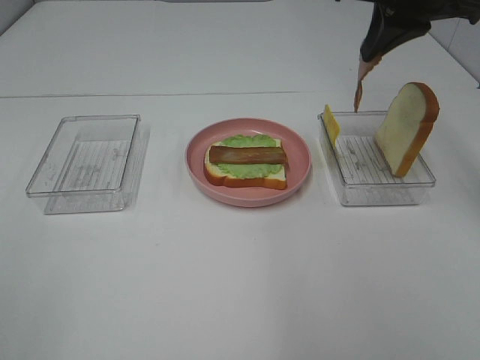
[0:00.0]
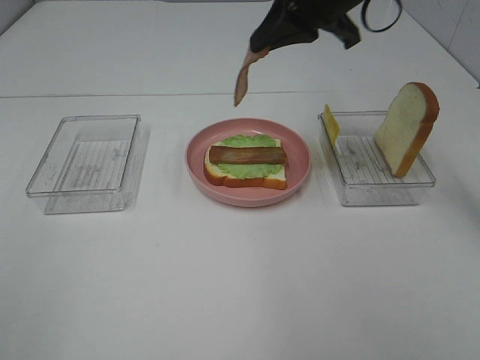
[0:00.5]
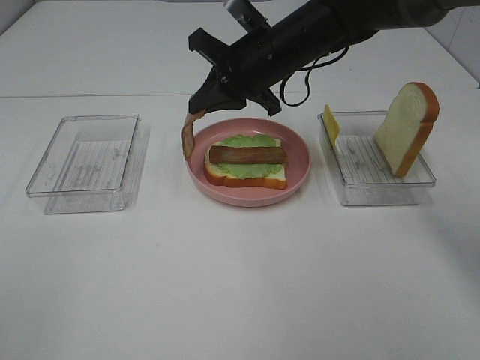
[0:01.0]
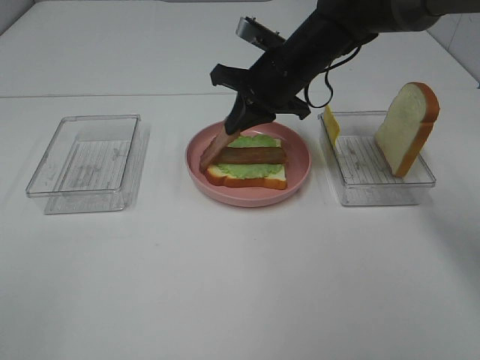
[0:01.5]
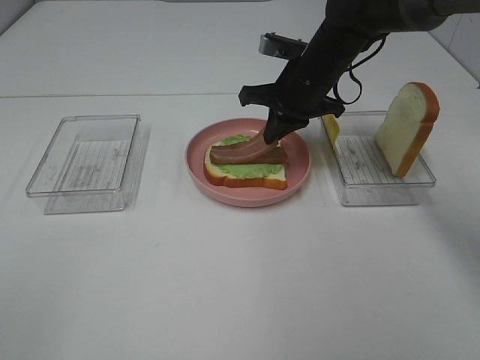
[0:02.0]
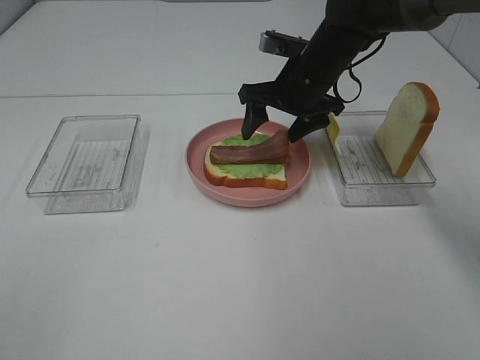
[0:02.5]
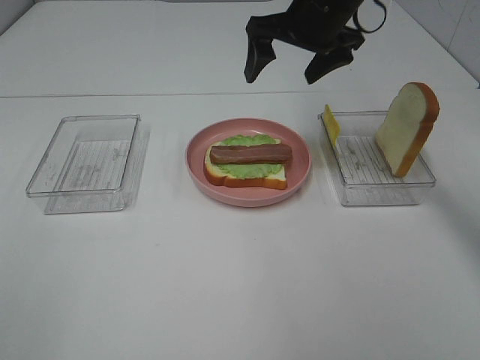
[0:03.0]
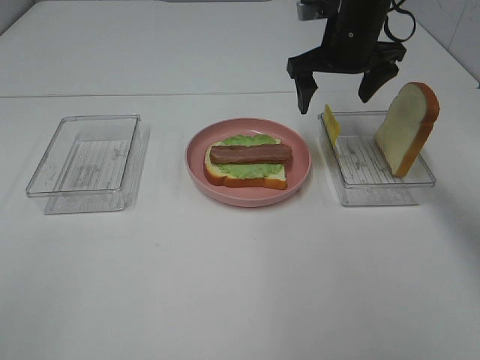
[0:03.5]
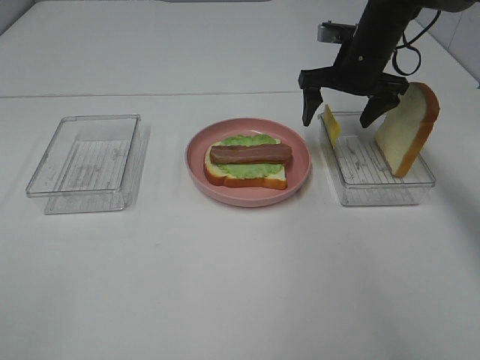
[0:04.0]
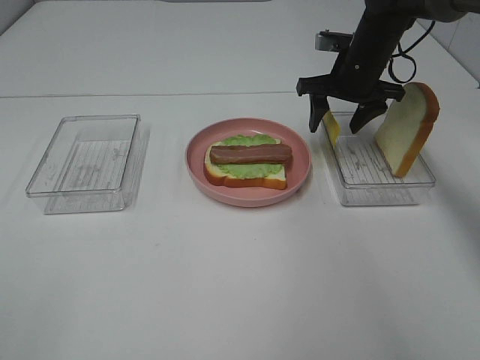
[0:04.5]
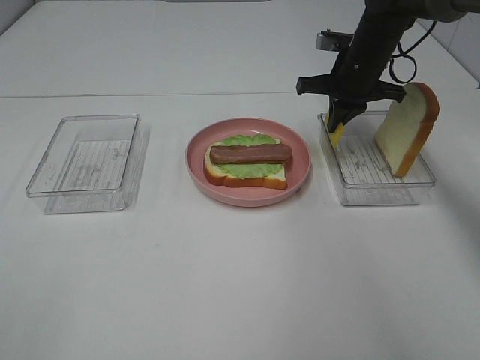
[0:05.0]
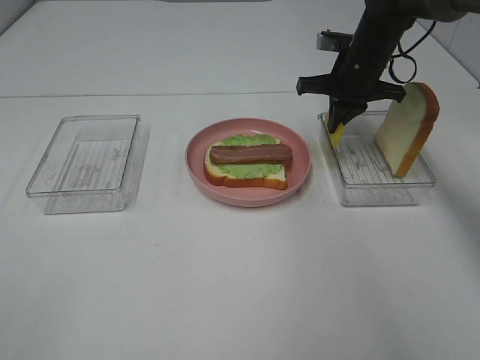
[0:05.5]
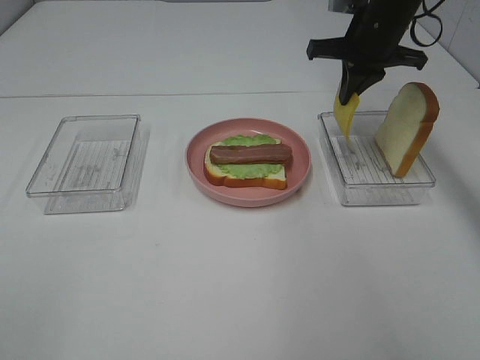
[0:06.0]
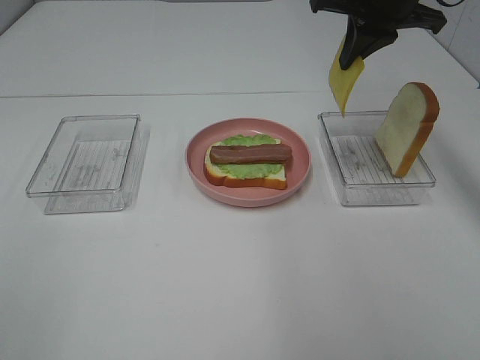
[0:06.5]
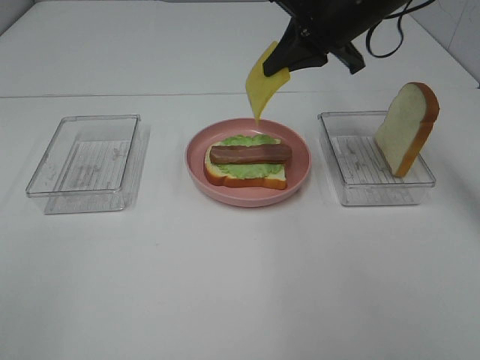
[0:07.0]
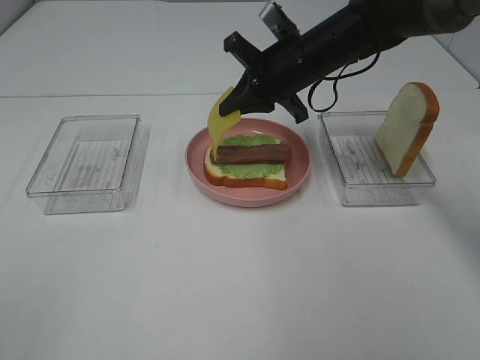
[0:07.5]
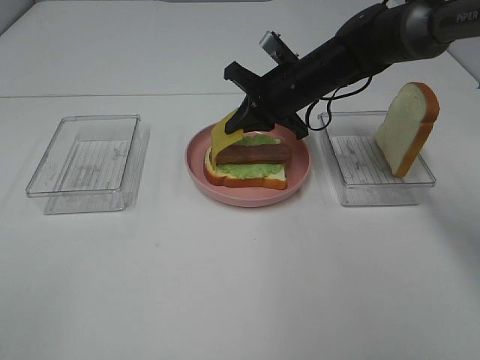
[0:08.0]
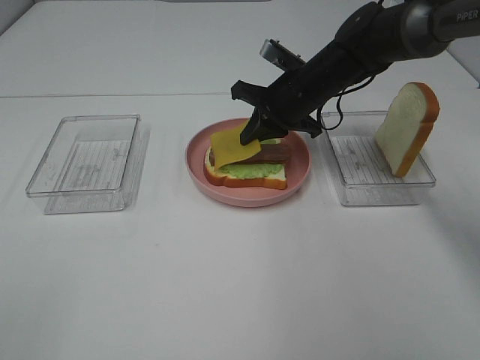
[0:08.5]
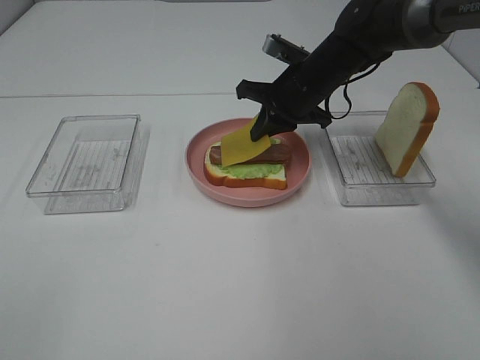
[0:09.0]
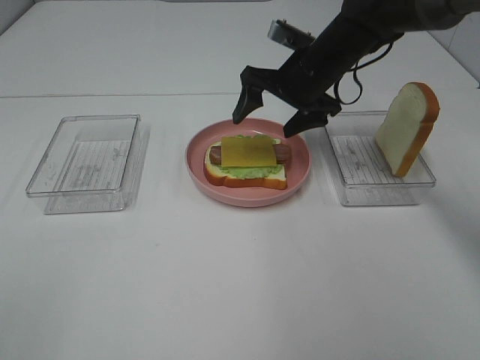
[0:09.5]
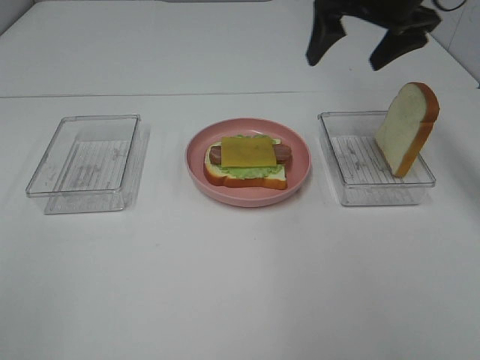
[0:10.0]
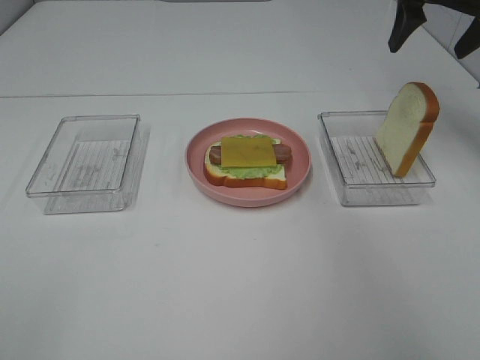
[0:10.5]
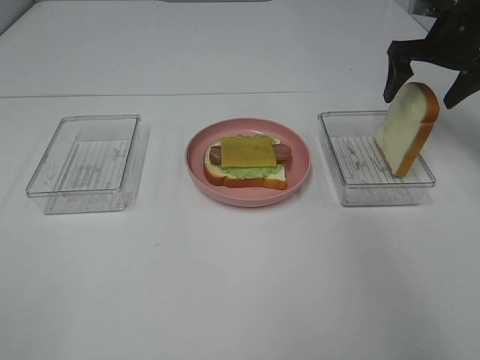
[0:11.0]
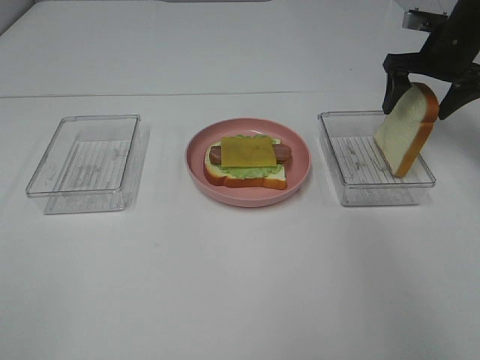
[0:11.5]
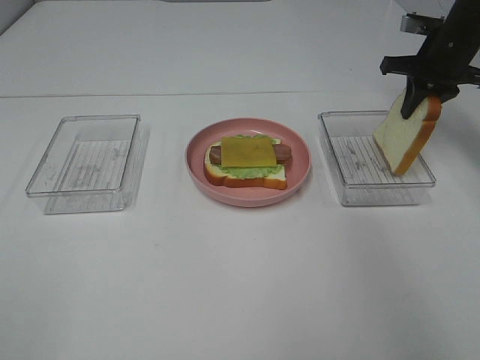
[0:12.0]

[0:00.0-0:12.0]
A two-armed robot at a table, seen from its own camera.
Task of the whole recording: Make sandwiches.
Step, 0:00.0 to 0:02.5: Right hand:place bacon on bacon.
Step, 0:03.0 to 0:05.0: Right hand:grab the cheese slice.
Step, 0:05.5 to 0:09.0: Right hand:place the cheese slice on top of the bacon.
Step, 0:09.5 to 0:11.5: Right hand:grab the bread slice.
0:00.0 to 0:02.0: The right gripper heads downward, to the left and forward, covering about 20 cm.
0:02.0 to 0:04.0: The right gripper is displaced to the right by about 10 cm, travels upward and back again, roughly 10 cm each way, and opens up.
0:04.0 to 0:06.0: The right gripper is displaced upward by roughly 5 cm, and closes its fingers.
0:06.0 to 0:08.0: The right gripper is displaced to the left and downward by approximately 10 cm.
0:08.0 to 0:10.0: The right gripper moves upward and to the right, about 20 cm, and opens its fingers.
0:10.0 to 0:12.0: The right gripper shifts roughly 15 cm to the right, downward and forward, and closes.

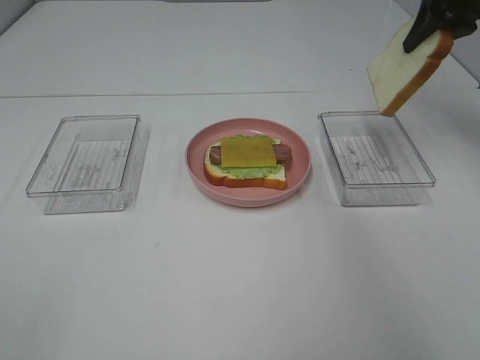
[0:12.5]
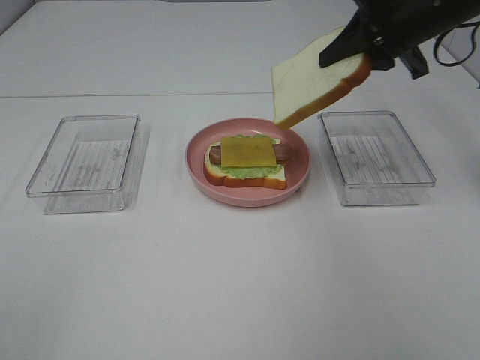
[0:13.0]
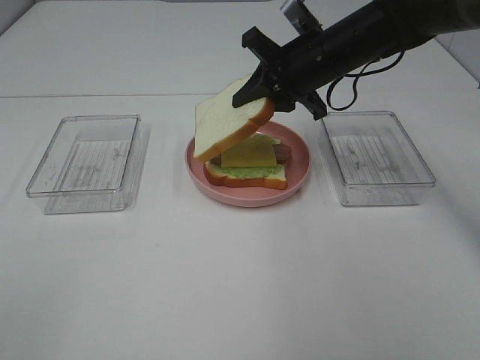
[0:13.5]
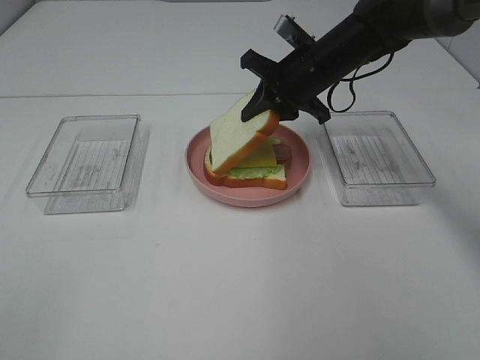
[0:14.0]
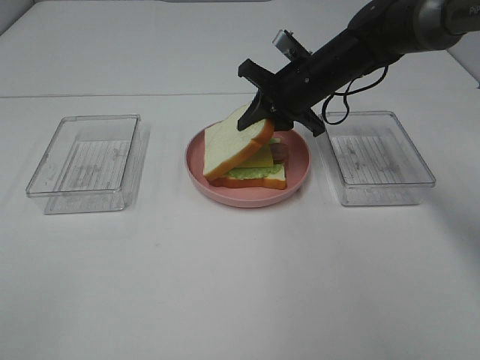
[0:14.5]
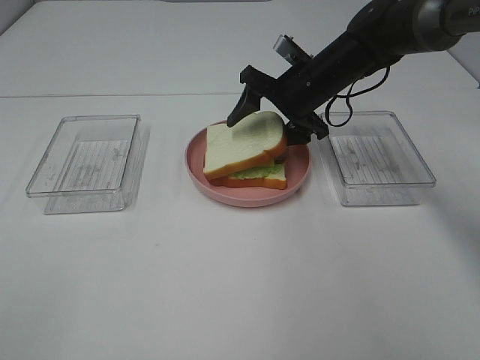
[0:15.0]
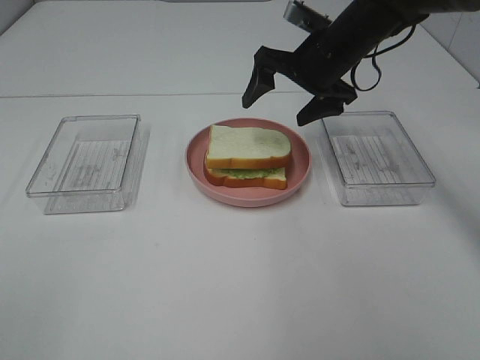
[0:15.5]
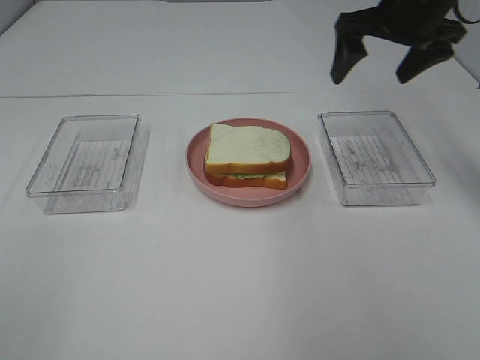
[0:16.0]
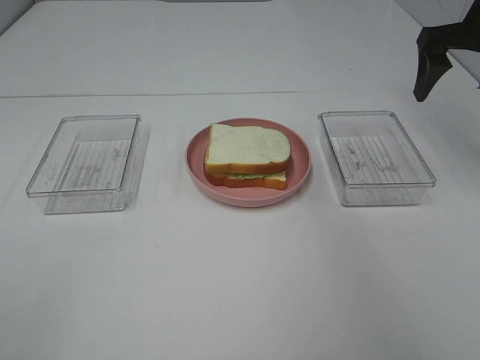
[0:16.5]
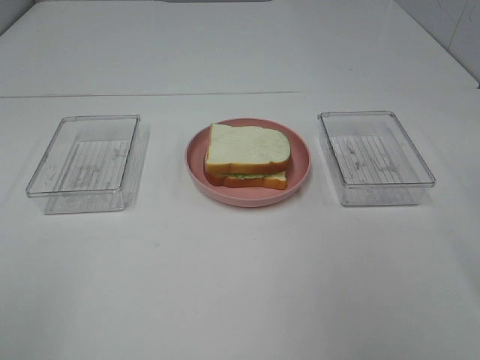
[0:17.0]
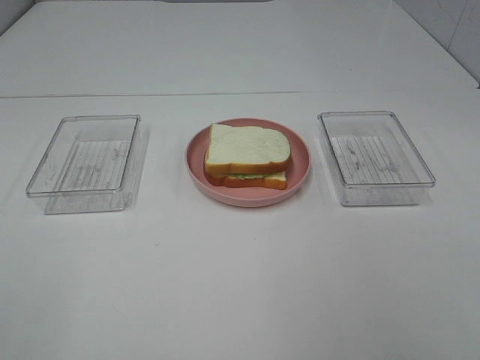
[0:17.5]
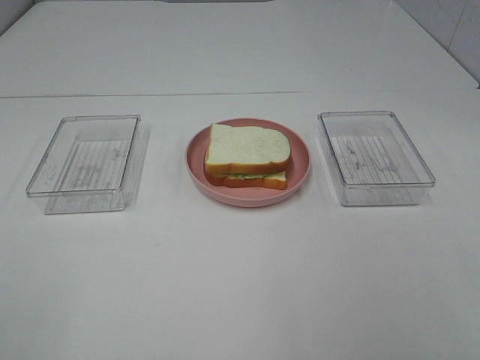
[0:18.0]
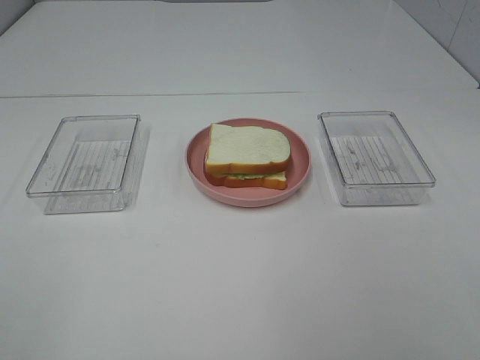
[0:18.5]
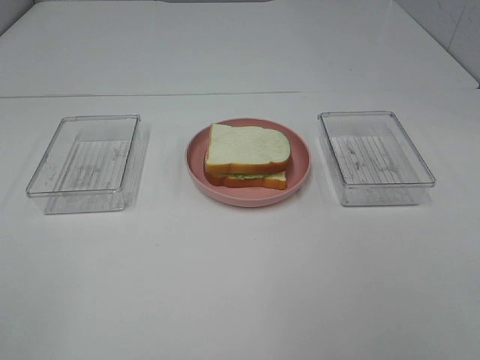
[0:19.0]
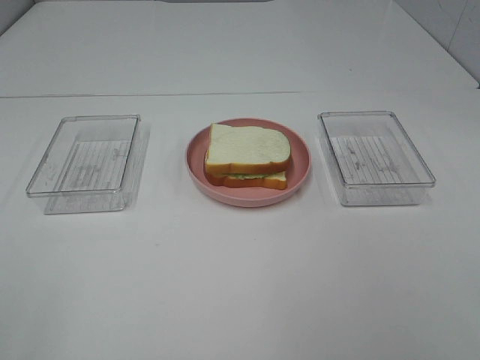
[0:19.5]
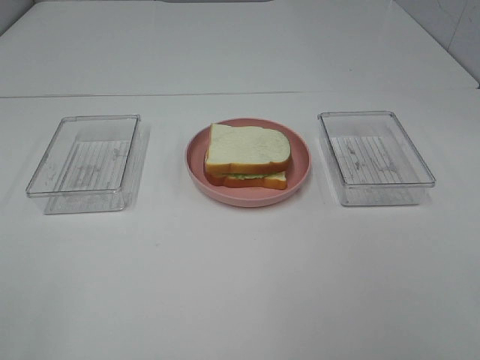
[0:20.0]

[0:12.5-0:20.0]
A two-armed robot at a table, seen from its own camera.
Task of the whole recording: Make sandwiches.
Step, 0:12.5 to 0:15.5: Right hand:place the bread slice on the cheese slice.
0:12.5 to 0:14.5: The right gripper travels to the left and downward by roughly 25 cm.
0:14.5 to 0:16.5: The right gripper travels to the right and upward by some 20 cm, and opens.
0:16.5 to 0:18.0: The right gripper goes approximately 40 cm backward.

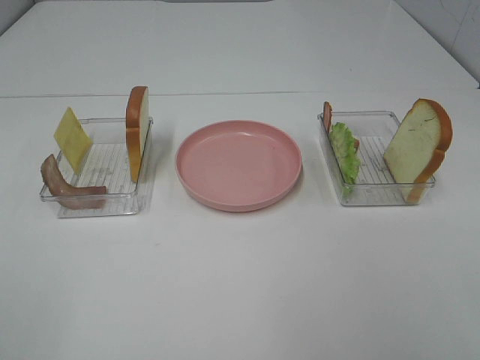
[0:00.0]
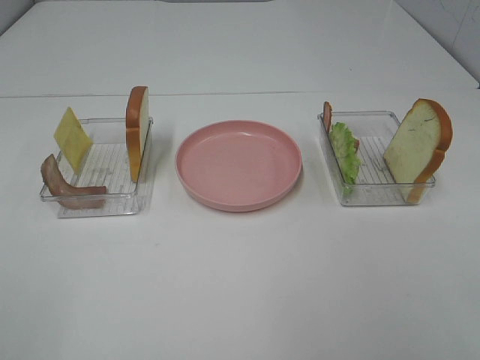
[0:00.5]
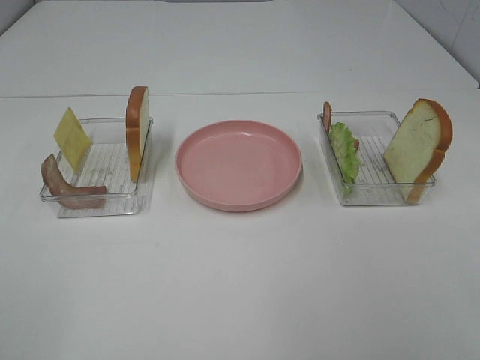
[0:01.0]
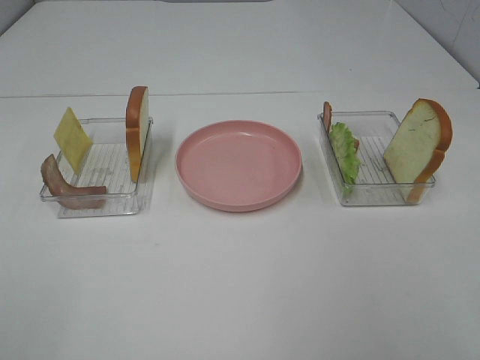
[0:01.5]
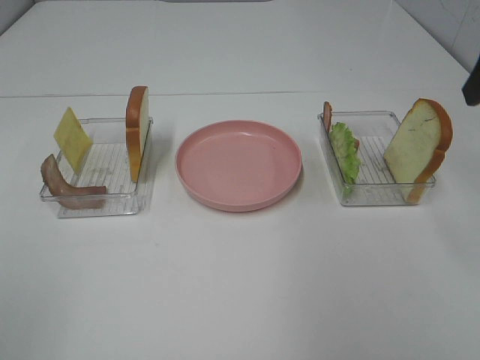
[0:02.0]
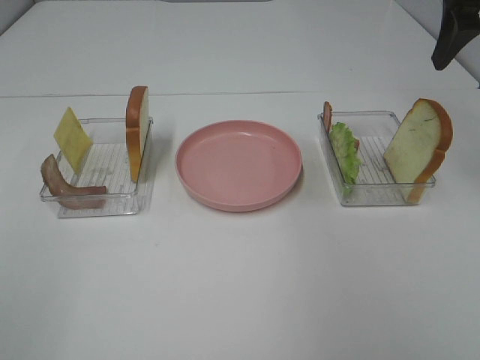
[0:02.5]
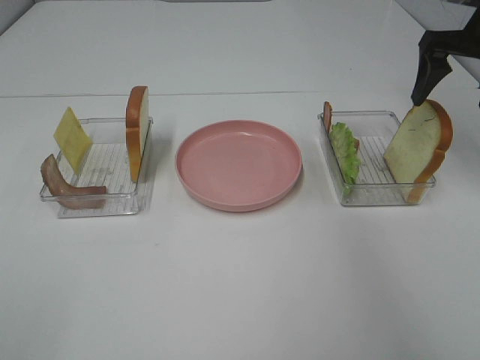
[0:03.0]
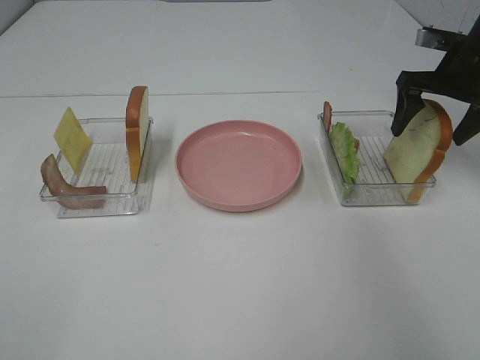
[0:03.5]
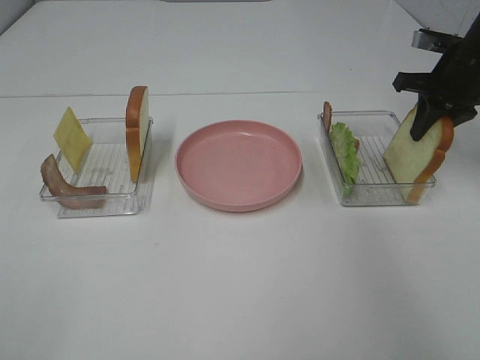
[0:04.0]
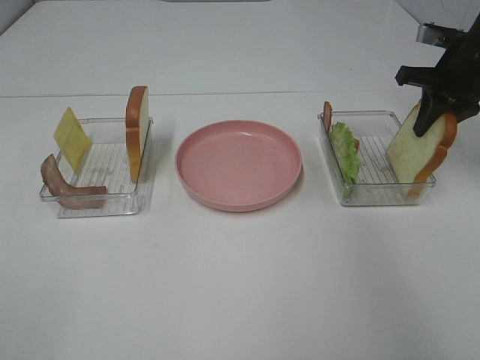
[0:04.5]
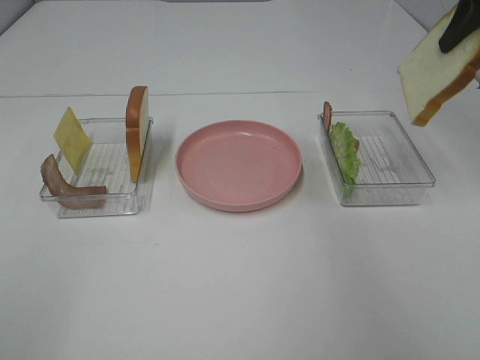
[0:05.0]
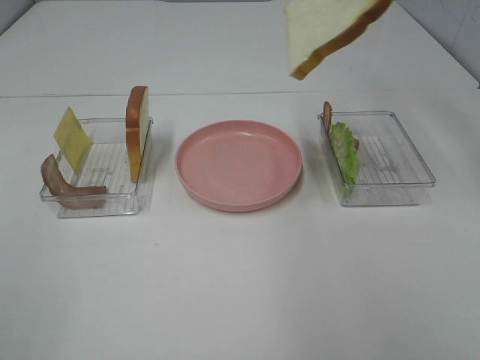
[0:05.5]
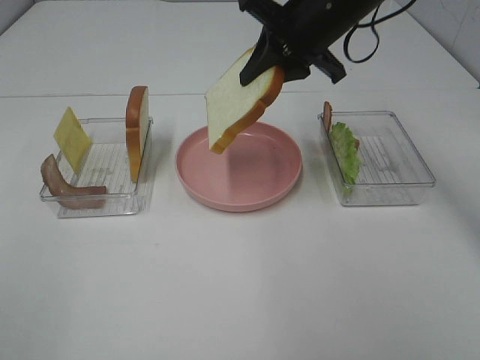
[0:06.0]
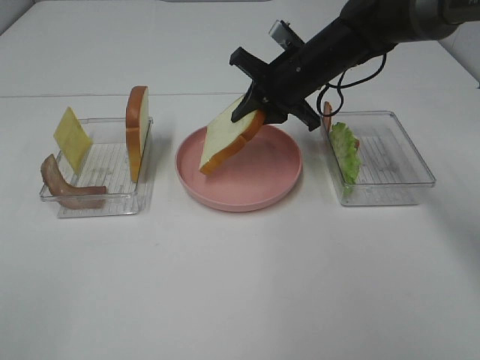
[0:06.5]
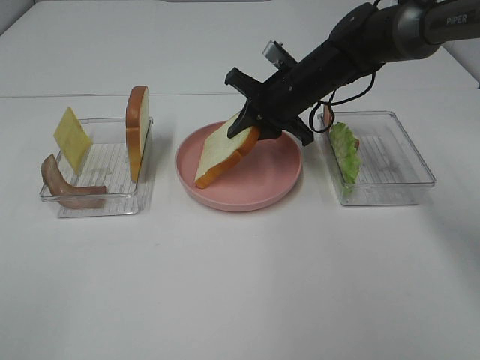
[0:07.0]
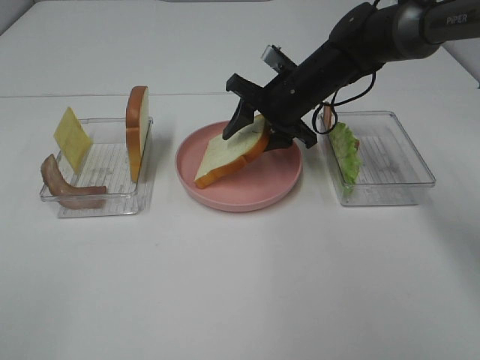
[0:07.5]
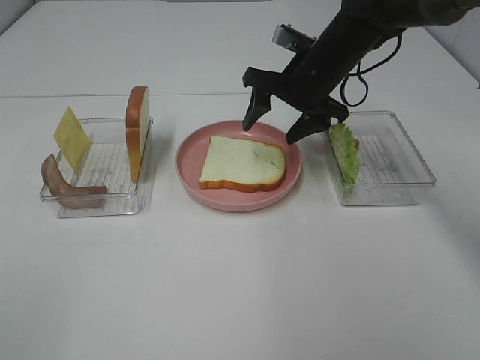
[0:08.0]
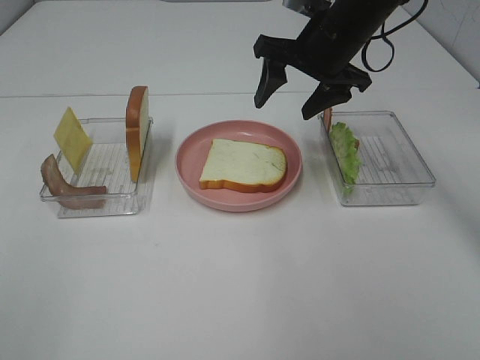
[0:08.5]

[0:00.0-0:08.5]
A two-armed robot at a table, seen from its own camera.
Task of the whole recording: Make sandwiches.
Step, 0:00.0 to 0:03.5: Right hand:grab the bread slice.
Step, 0:04.0 to 0:08.5: Right hand:place the bread slice on the plate.
0:02.0 to 0:04.0: The right gripper heads forward and downward, covering some 25 cm, and closes up.
0:04.0 to 0:06.5: The right gripper goes roughly 20 cm to the left.
0:06.5 to 0:08.5: The right gripper goes roughly 5 cm upward, and opens up.
